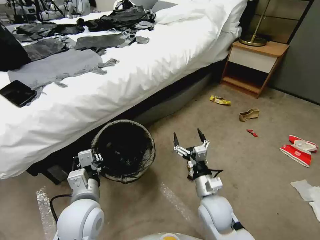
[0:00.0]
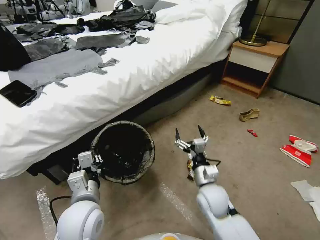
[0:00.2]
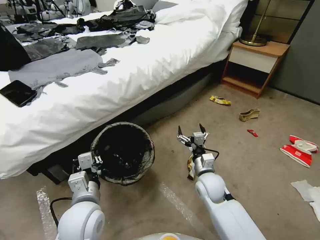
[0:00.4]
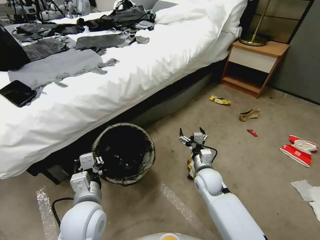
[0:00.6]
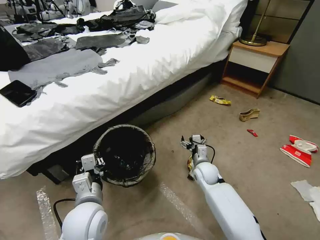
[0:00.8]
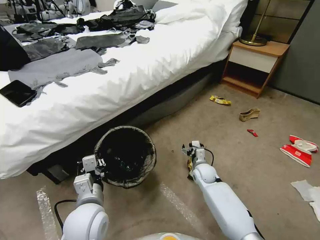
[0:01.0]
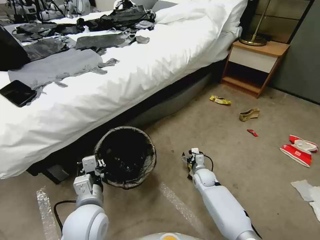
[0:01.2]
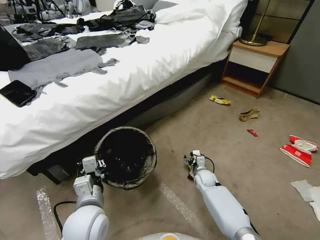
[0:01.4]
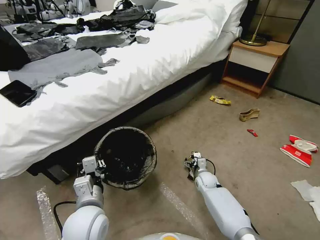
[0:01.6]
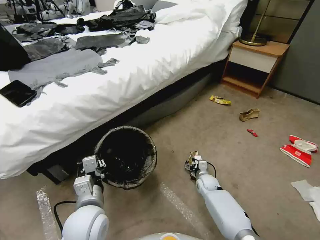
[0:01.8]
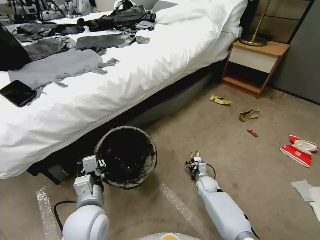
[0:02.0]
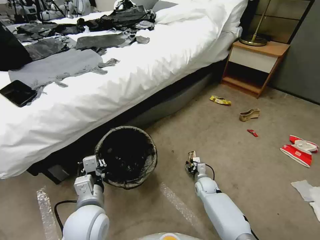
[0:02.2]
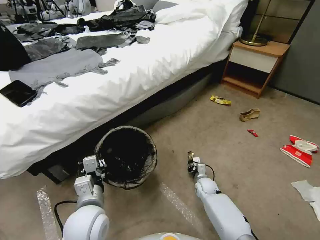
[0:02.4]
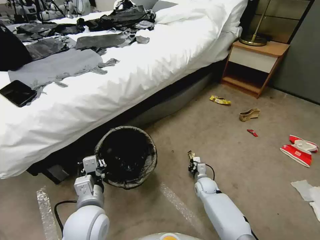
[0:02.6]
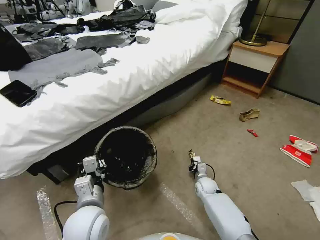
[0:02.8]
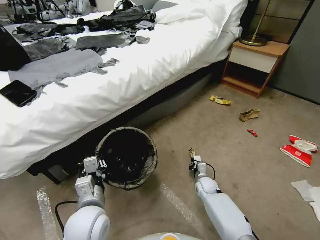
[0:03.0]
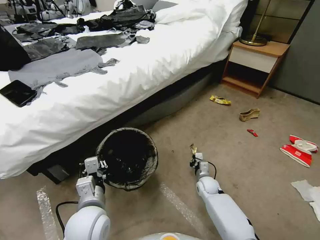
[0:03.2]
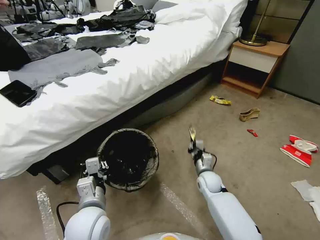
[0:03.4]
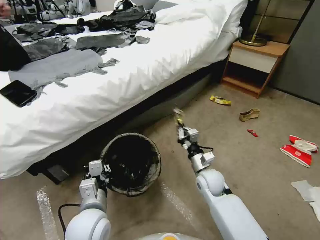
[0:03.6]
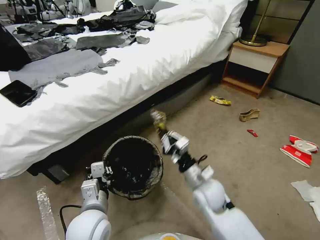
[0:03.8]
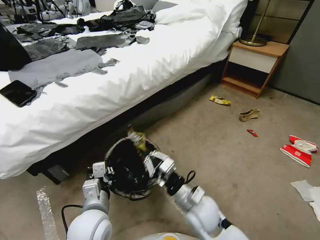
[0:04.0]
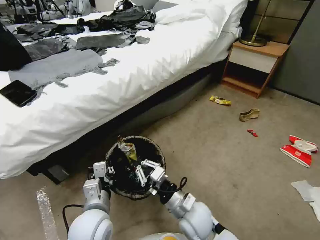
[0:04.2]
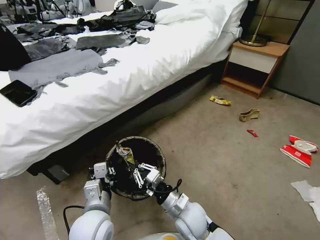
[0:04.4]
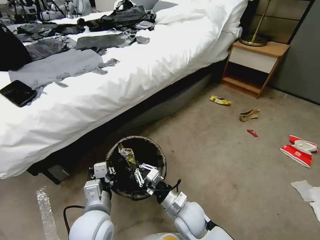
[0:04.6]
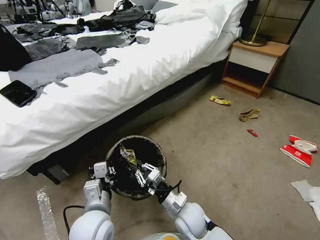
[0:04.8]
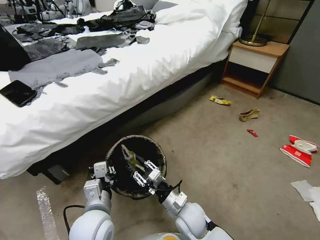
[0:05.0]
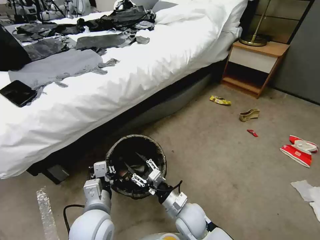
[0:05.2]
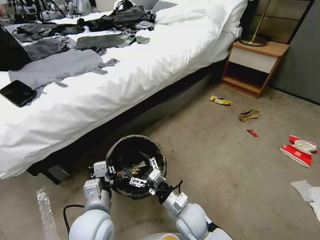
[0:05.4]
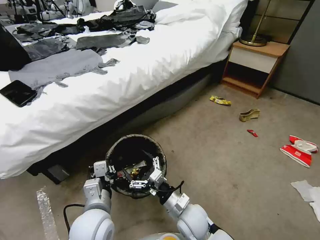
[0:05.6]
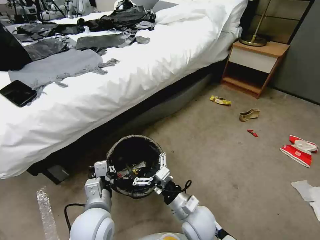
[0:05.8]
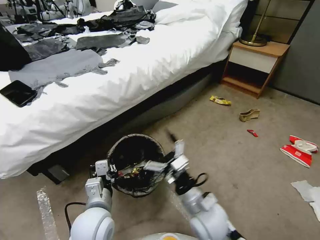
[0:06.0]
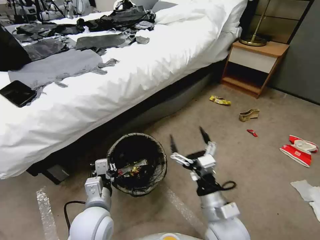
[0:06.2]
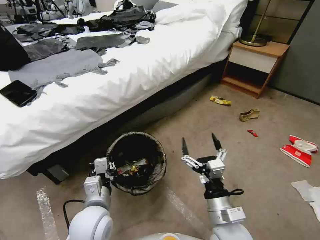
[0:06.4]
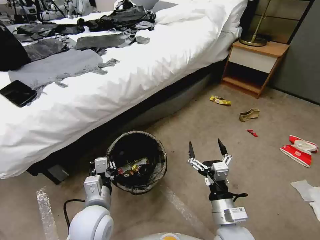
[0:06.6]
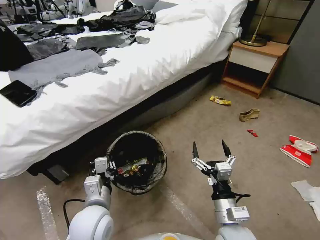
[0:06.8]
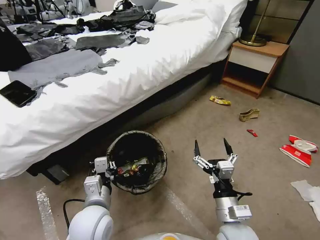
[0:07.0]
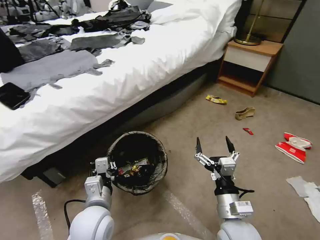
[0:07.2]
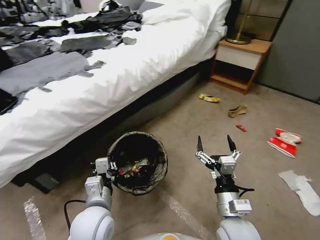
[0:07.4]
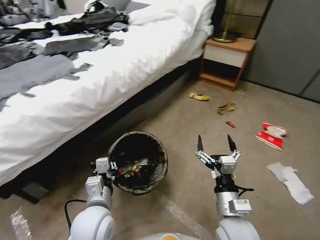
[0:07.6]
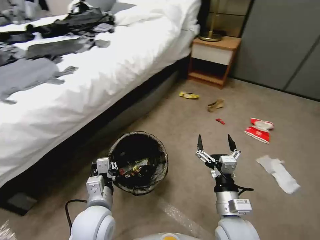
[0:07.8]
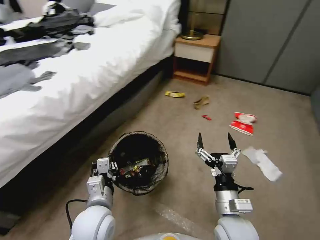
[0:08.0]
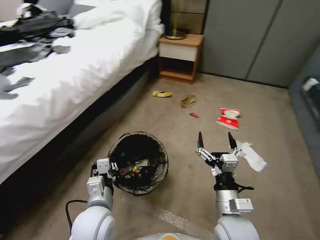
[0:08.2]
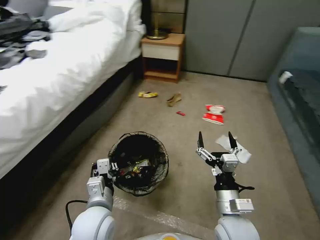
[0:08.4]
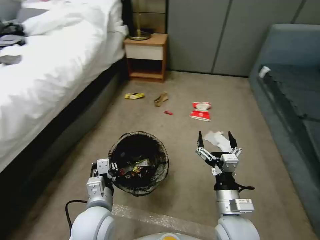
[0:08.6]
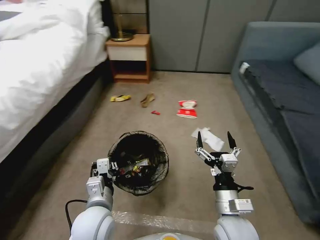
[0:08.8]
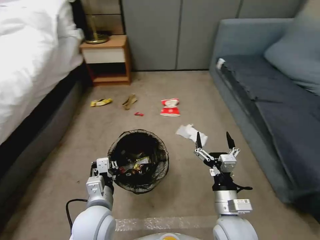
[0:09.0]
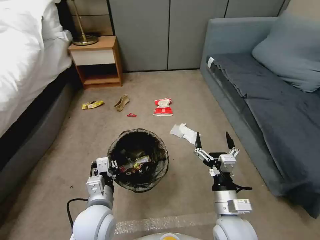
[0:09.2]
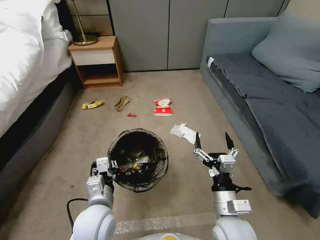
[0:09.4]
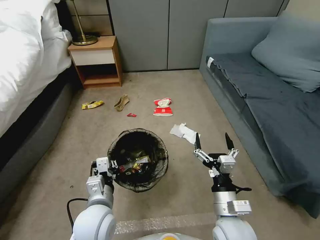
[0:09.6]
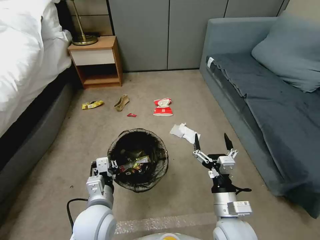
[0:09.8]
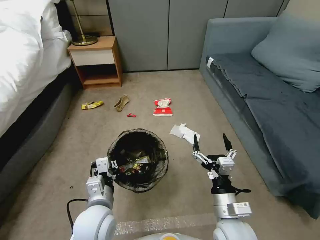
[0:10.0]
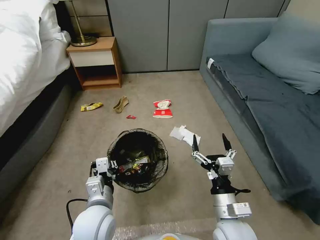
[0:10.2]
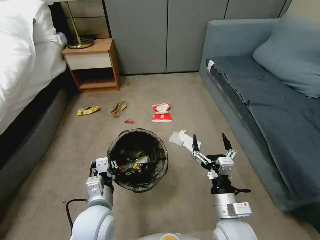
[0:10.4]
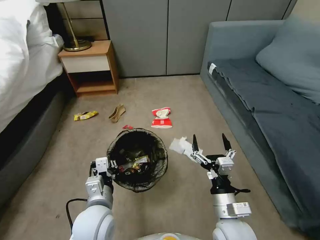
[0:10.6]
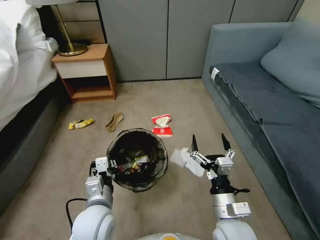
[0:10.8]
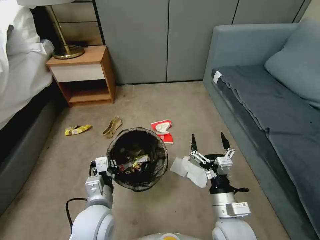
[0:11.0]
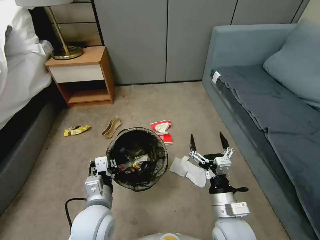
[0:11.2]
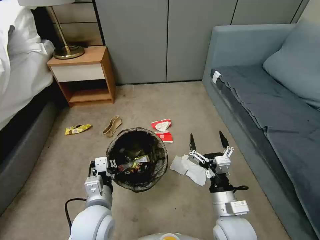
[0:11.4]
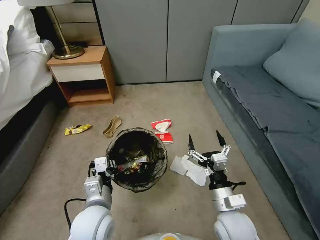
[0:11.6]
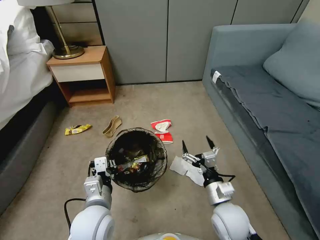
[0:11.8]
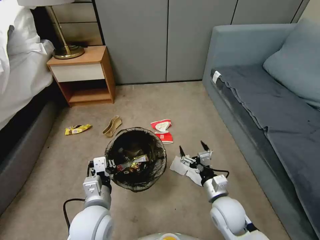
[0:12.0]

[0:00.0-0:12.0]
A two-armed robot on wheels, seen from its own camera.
Task of the whole recording: Pick up the trash bin, then pick up the garbage from the floor and place it into the trash bin.
0:00.0 to 0:01.6: The right gripper is displaced downward and forward by roughly 25 cm.
0:01.6 to 0:03.0: The right gripper closes its fingers.
0:03.0 to 0:04.4: The right gripper moves upward, backward and to the left, approximately 25 cm.
0:04.4 to 0:06.0: The right gripper moves some 5 cm, and opens.
0:06.0 to 0:07.6: The right gripper moves to the right, roughly 5 cm.
0:10.4 to 0:12.0: The right gripper travels forward and downward by about 10 cm.

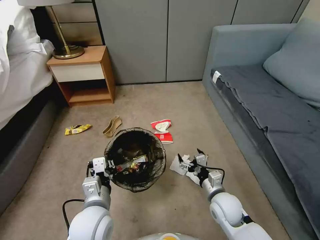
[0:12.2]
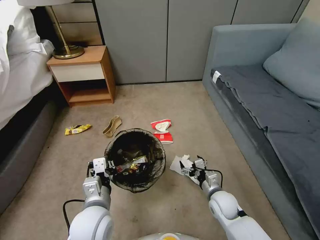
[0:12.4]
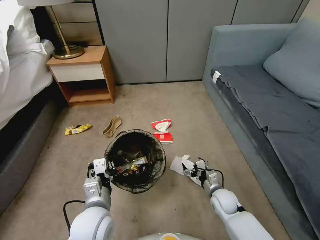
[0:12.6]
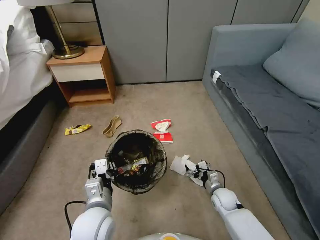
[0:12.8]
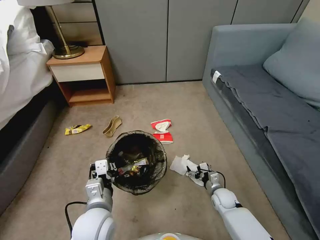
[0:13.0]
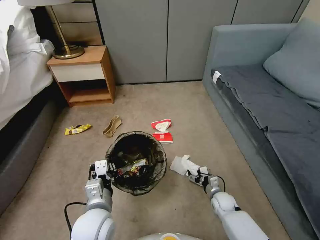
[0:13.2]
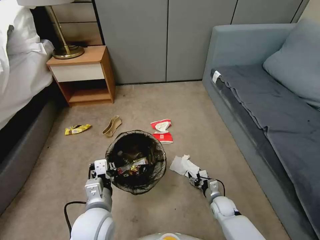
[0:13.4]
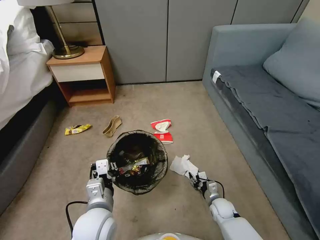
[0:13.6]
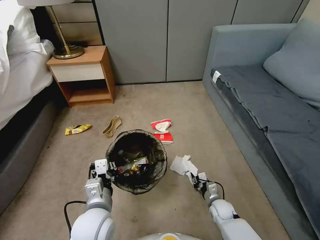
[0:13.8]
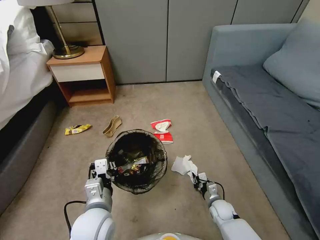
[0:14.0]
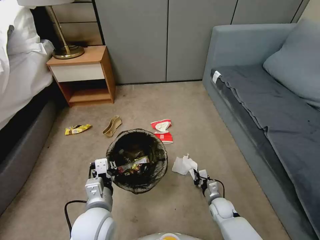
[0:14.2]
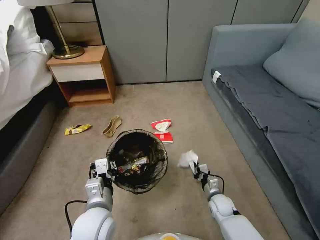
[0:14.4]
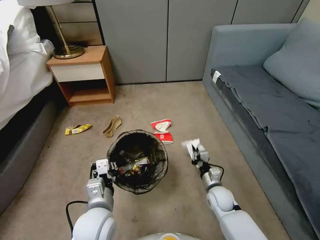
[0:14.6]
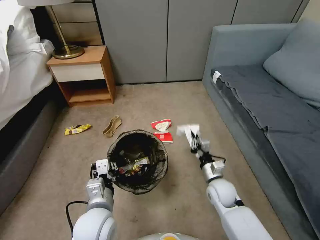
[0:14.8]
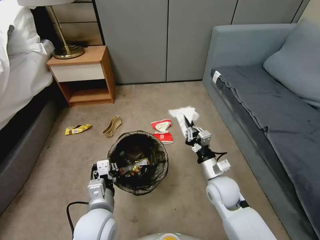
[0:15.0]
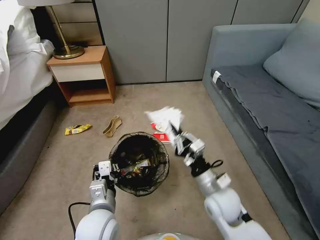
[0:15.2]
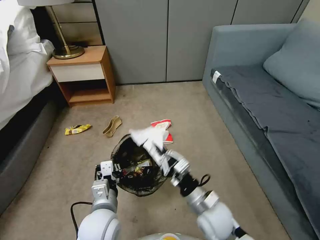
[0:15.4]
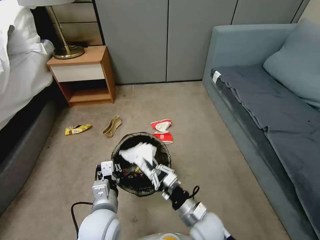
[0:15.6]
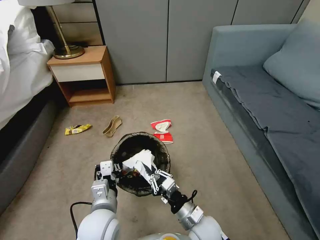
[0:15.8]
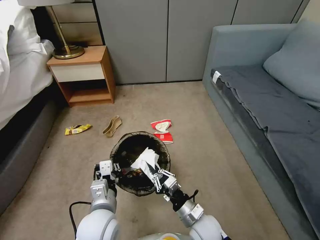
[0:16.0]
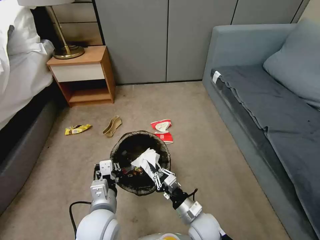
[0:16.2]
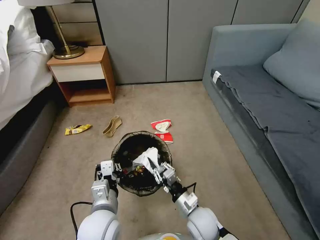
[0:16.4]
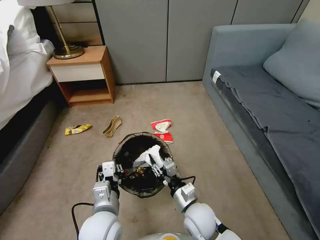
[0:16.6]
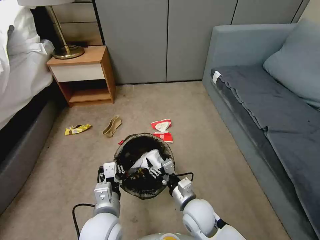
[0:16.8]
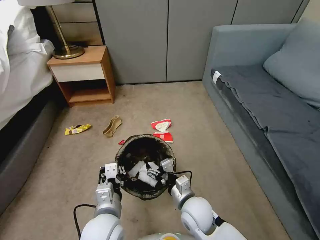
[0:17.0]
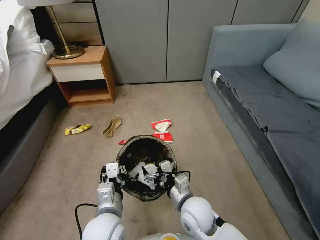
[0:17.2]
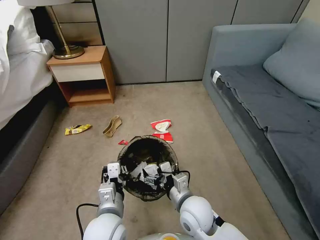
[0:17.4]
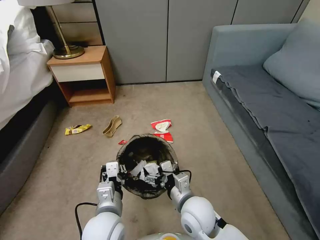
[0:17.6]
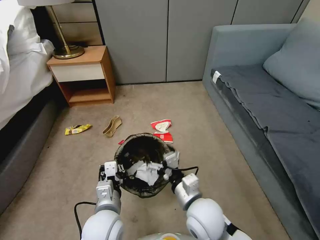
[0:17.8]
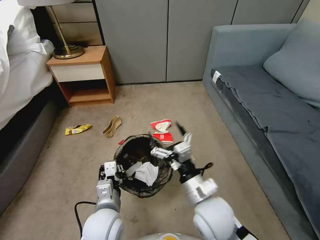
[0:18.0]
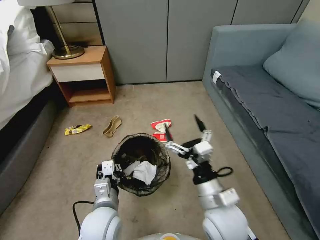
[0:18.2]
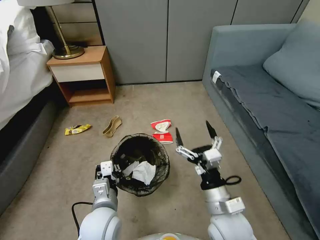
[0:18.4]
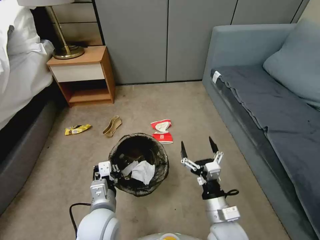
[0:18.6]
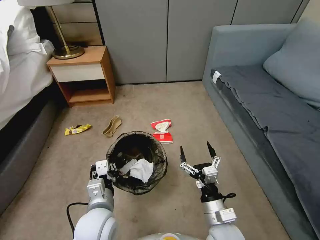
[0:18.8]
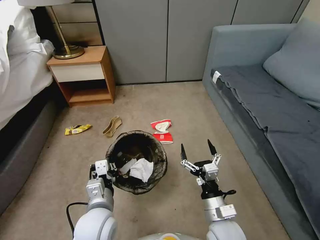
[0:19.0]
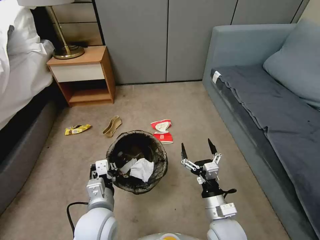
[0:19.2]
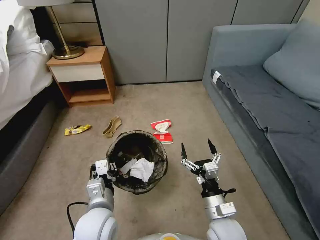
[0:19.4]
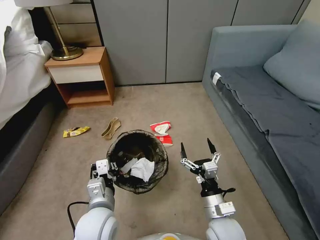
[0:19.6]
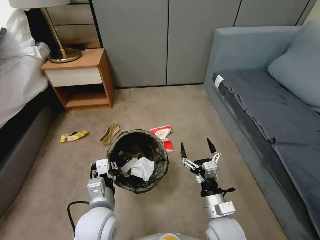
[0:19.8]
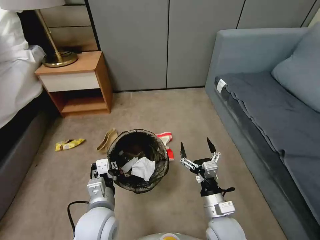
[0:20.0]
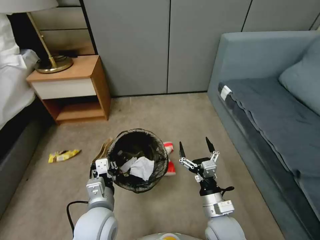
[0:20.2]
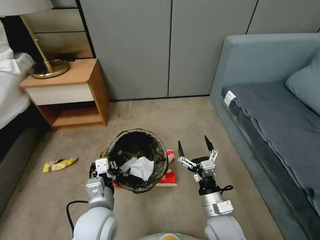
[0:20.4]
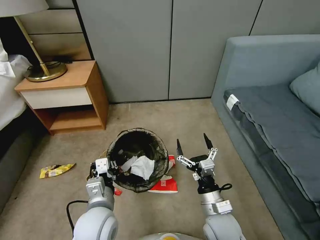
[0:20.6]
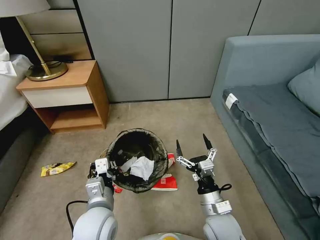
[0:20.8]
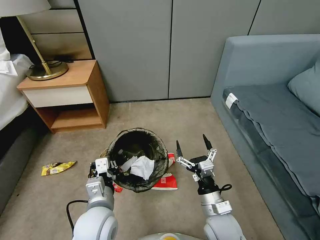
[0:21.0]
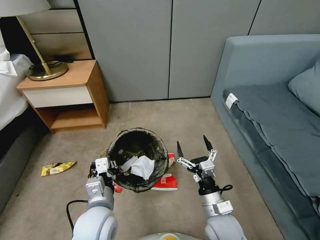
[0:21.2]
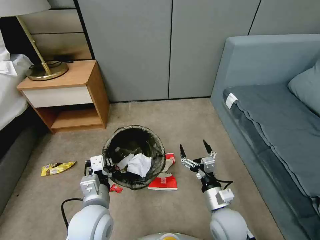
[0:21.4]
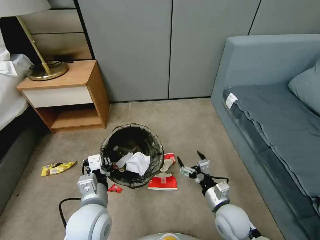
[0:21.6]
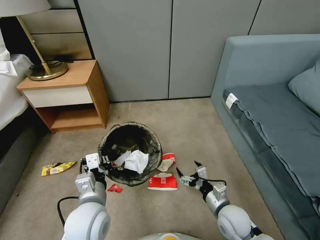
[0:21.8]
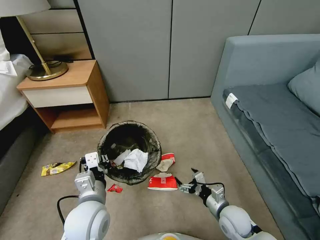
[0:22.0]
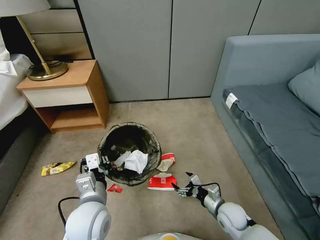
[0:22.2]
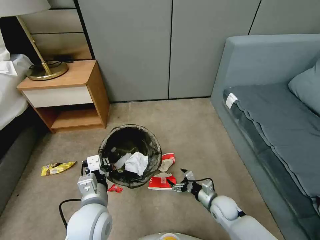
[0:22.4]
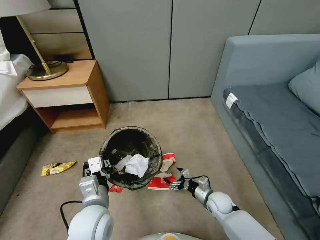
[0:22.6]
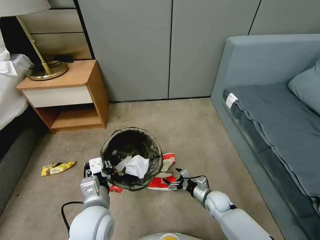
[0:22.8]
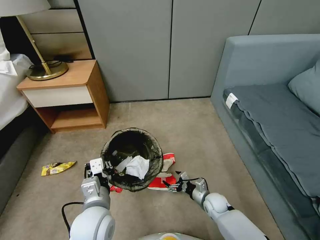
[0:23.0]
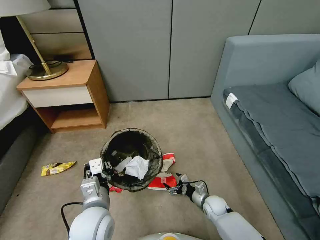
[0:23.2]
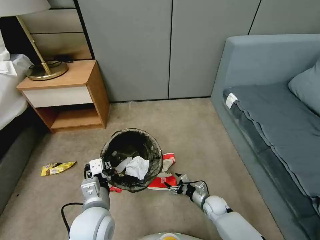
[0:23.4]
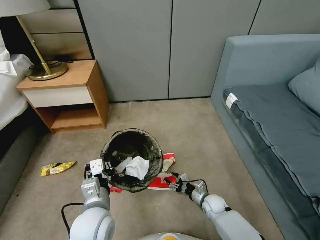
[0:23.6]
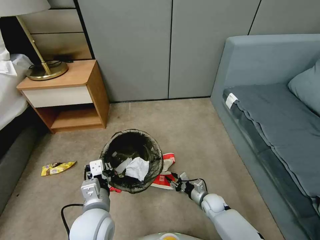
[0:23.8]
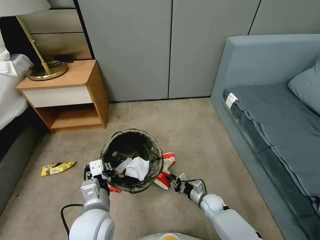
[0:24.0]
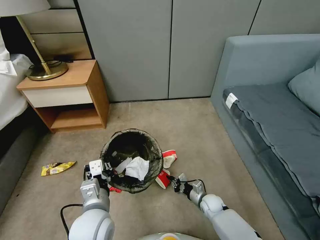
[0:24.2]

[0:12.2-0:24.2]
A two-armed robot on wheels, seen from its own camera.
Task of the whole recording: Pick up the trash bin, then pick up the garbage from the floor and place it into the trash bin.
0:12.2 to 0:13.8: The right gripper travels downward by approximately 15 cm, and closes its fingers.
0:13.8 to 0:15.2: The right gripper is displaced upward by some 25 cm.
0:15.2 to 0:16.6: The right gripper travels downward and to the left by approximately 10 cm, and opens its fingers.
0:16.6 to 0:18.2: The right gripper moves upward, some 15 cm, and opens up.
0:18.2 to 0:19.8: The right gripper shifts some 10 cm downward.
0:21.2 to 0:22.6: The right gripper is displaced downward, forward and to the right by about 20 cm.
0:22.6 to 0:24.2: The right gripper goes approximately 5 cm downward, and closes up.
